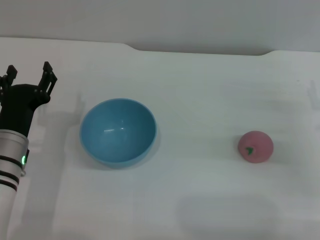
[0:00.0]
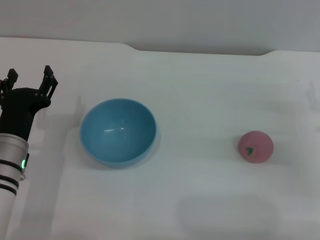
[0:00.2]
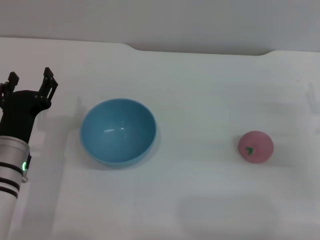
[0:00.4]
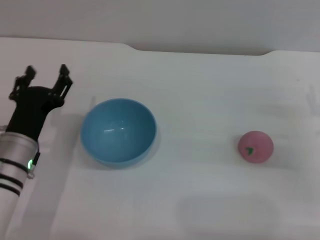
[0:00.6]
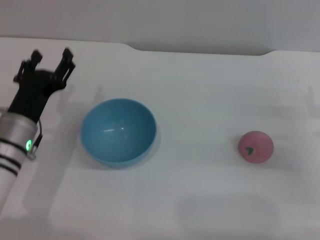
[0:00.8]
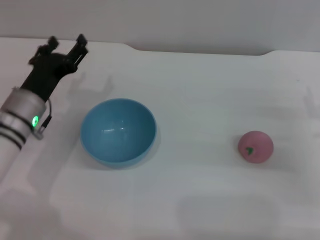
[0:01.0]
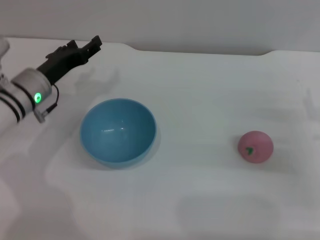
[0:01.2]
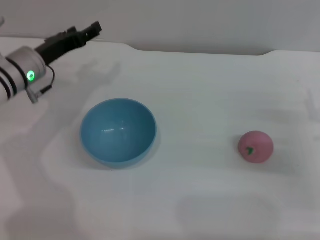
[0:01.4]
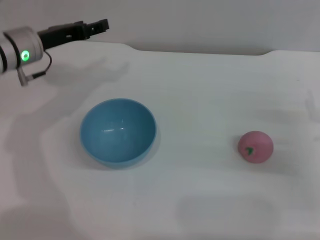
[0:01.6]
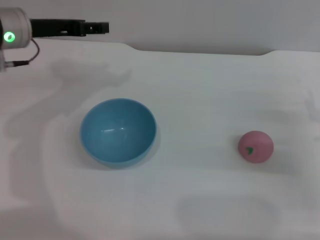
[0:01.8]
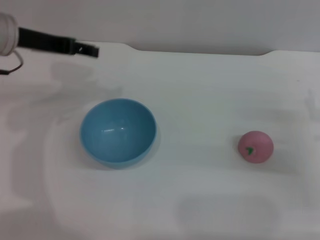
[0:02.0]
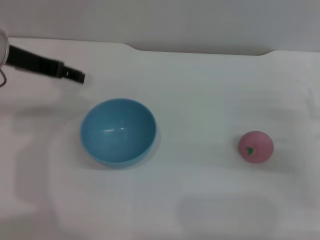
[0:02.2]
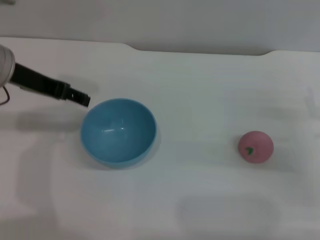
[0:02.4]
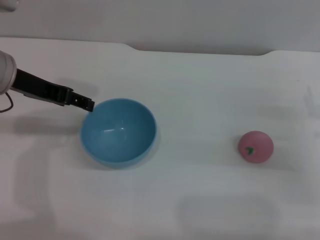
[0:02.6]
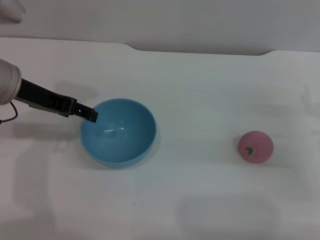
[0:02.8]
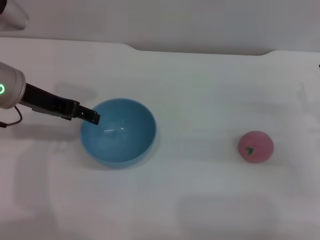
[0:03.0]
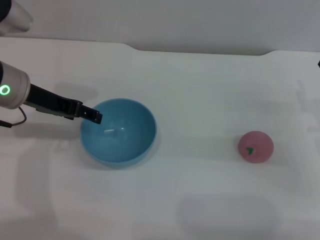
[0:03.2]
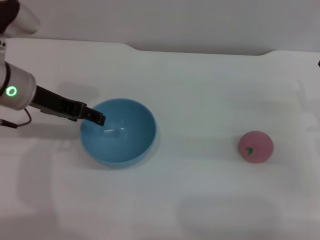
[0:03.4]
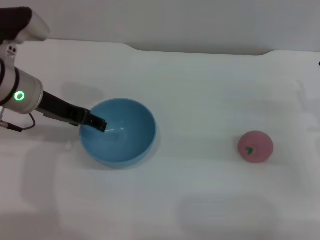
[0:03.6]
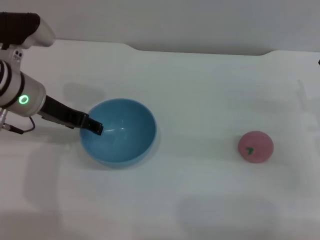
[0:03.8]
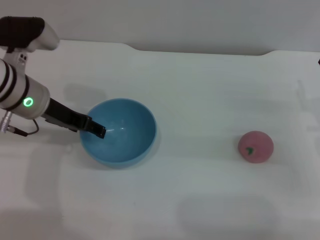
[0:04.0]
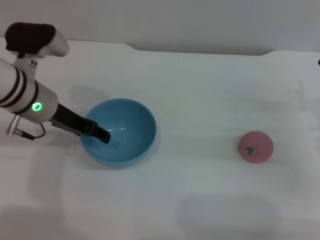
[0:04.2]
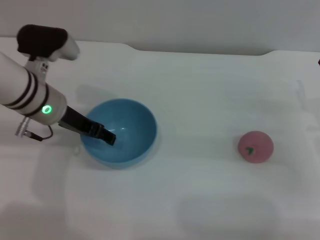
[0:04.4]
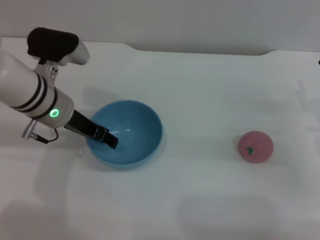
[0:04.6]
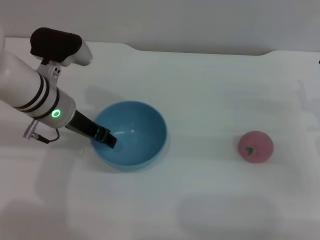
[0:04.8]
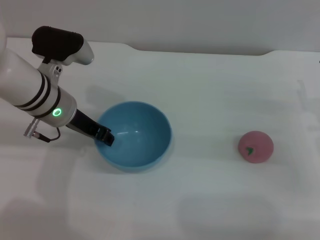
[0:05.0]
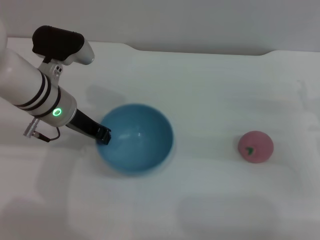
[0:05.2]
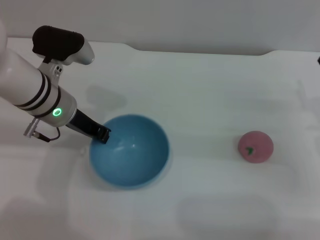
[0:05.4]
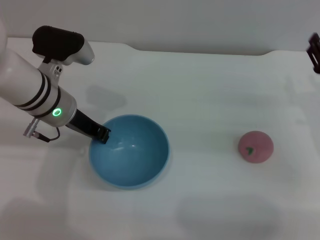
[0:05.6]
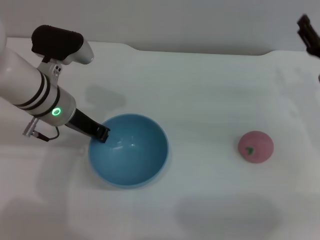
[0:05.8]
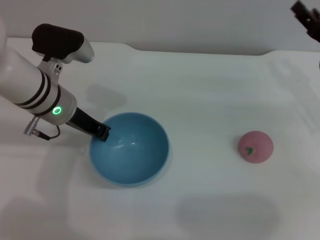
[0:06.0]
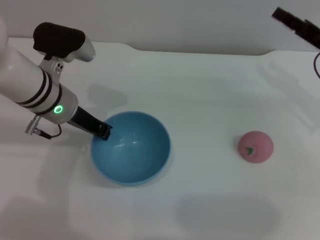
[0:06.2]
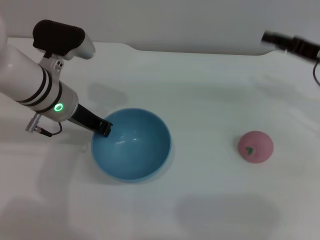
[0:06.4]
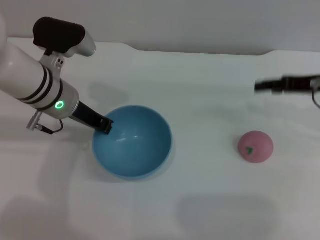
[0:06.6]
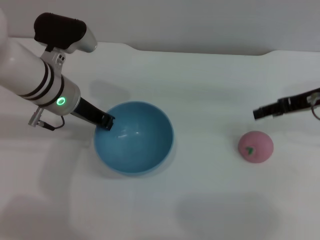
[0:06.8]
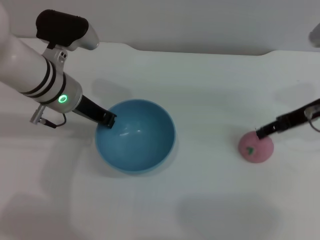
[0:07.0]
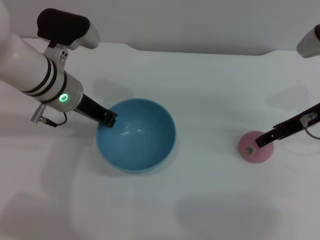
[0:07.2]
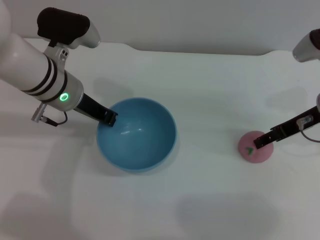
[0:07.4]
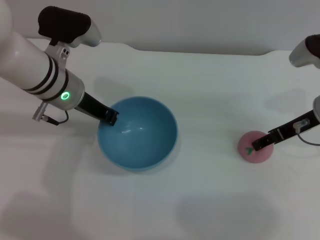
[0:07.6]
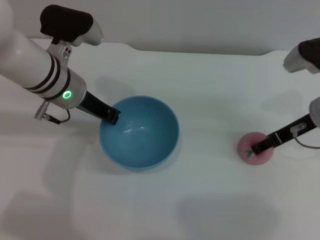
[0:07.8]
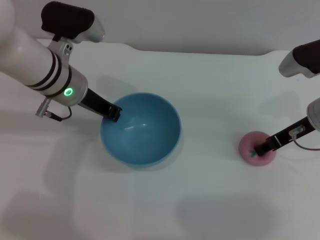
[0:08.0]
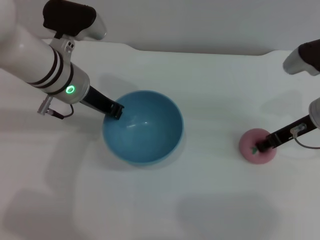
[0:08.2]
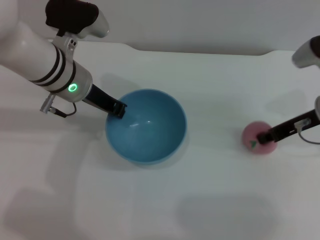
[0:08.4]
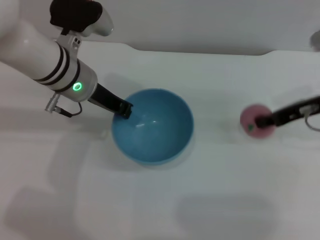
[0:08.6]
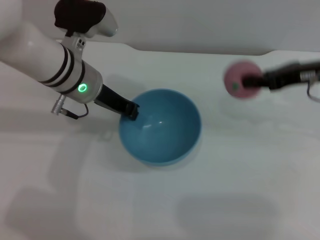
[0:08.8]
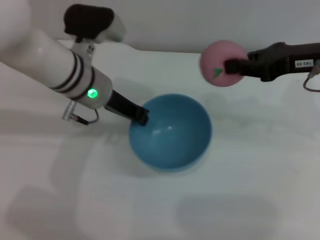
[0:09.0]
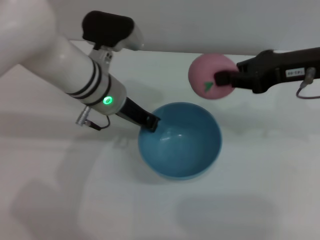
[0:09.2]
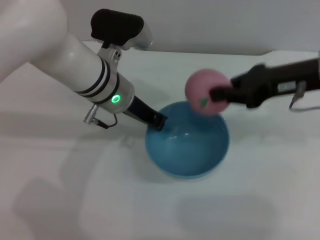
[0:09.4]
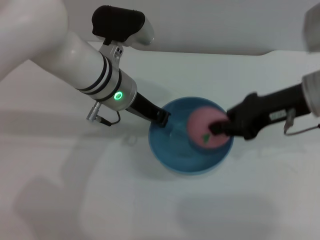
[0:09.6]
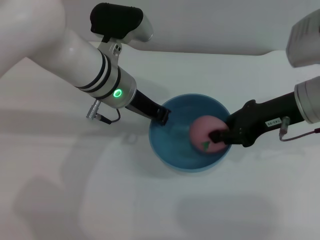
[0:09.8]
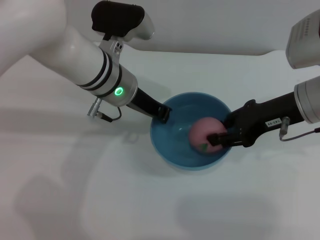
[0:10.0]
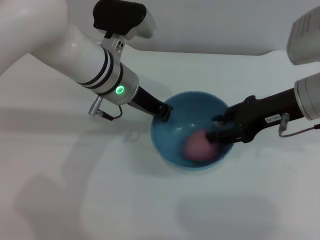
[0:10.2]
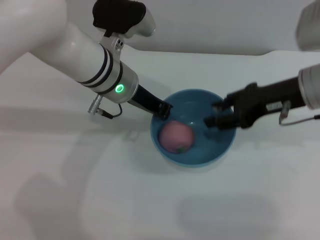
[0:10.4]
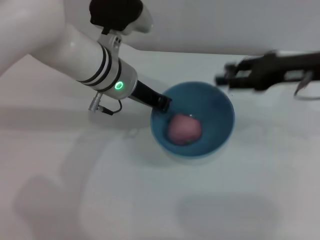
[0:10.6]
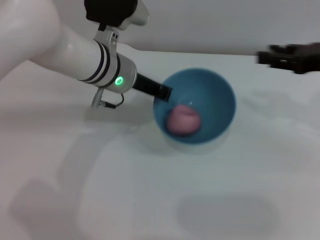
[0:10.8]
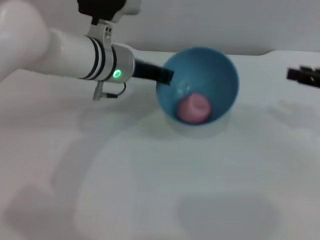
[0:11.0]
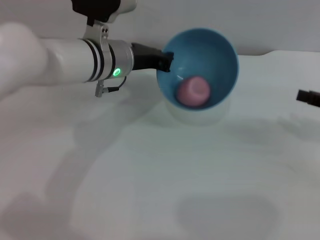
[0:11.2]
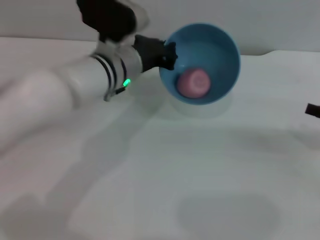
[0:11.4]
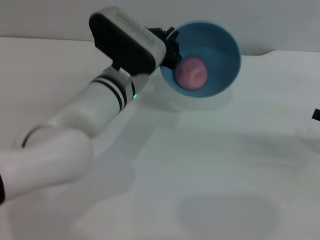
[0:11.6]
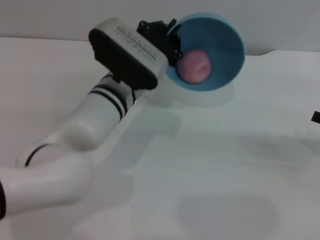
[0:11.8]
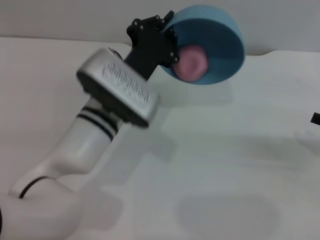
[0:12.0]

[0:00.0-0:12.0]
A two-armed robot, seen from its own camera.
Task of the whole recording: put the peach into the blue bowl and pour it out repeatedly.
Step, 0:00.0 to 0:06.8: Pick up the bowl with the left gripper.
Step, 0:07.0 to 0:08.6: Pick up the peach with the right gripper.
Step, 0:09.0 to 0:10.6: Place the peach into the bowl.
0:00.0 to 0:01.6: The left gripper is displaced forward and upward by about 20 cm.
0:01.6 to 0:03.0: The left gripper heads backward, covering approximately 5 cm.
0:03.0 to 0:04.4: The left gripper shifts roughly 5 cm downward.
0:04.4 to 0:06.0: The right gripper heads forward, covering some 5 cm. The left gripper closes up.
0:07.6 to 0:09.0: The right gripper moves upward, roughly 10 cm, and closes its fingers.
0:09.0 to 0:10.4: The right gripper ends up some 5 cm from where it was, and opens.
0:10.4 to 0:12.0: The right gripper travels to the right, backward and downward by about 20 cm. Meanwhile the left gripper shifts some 10 cm backward and downward.

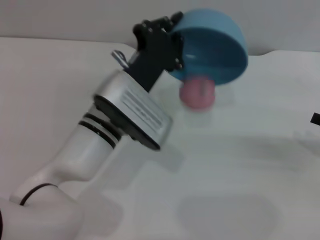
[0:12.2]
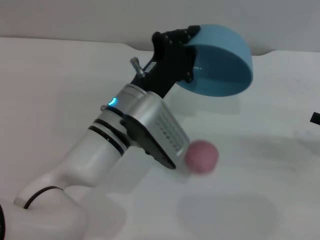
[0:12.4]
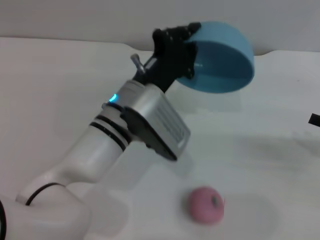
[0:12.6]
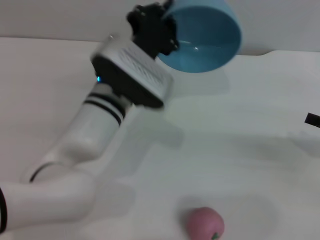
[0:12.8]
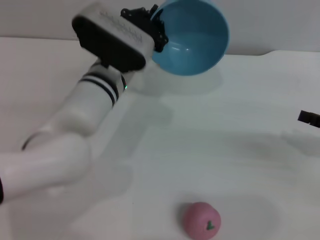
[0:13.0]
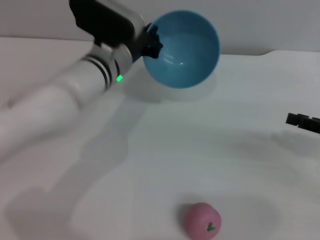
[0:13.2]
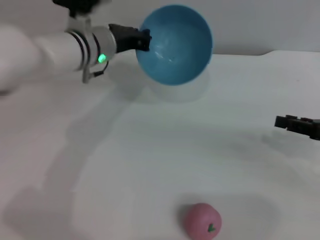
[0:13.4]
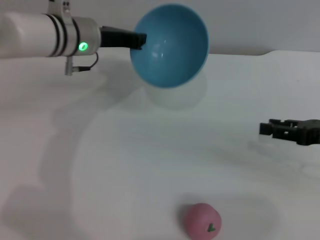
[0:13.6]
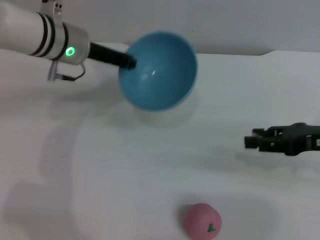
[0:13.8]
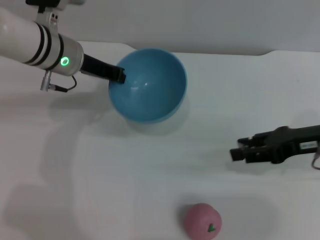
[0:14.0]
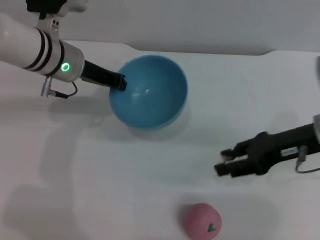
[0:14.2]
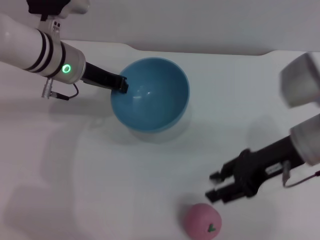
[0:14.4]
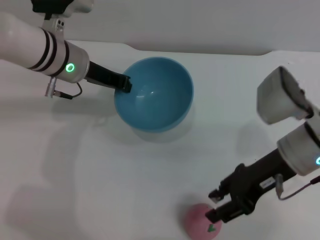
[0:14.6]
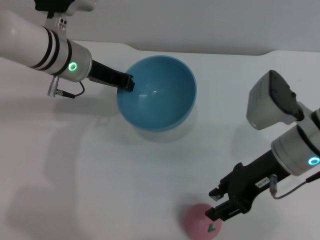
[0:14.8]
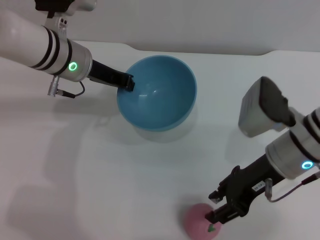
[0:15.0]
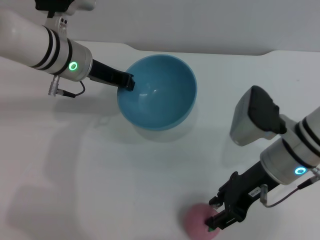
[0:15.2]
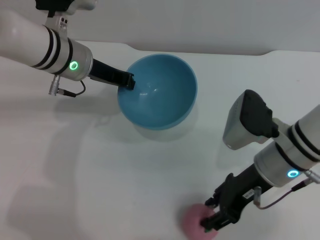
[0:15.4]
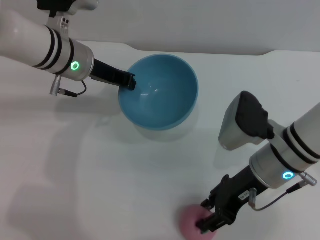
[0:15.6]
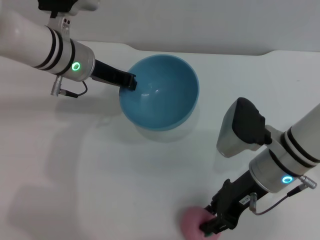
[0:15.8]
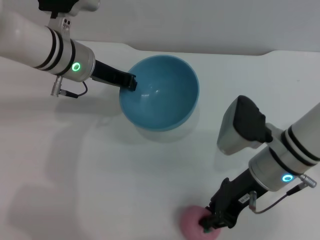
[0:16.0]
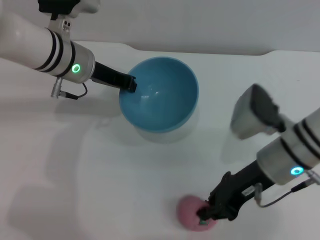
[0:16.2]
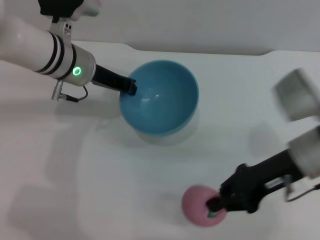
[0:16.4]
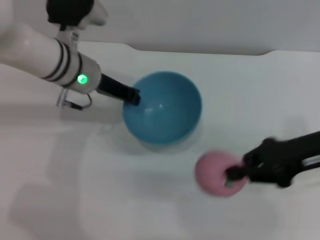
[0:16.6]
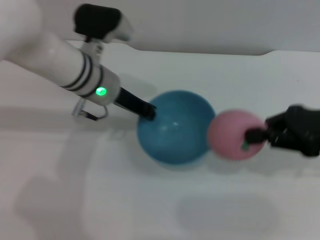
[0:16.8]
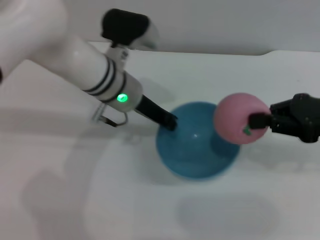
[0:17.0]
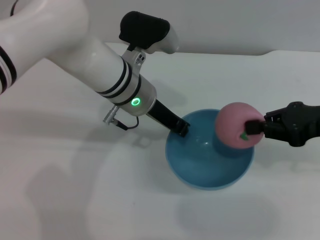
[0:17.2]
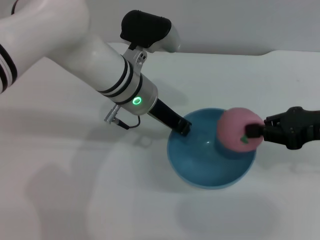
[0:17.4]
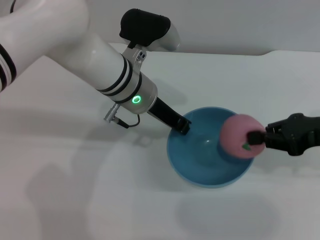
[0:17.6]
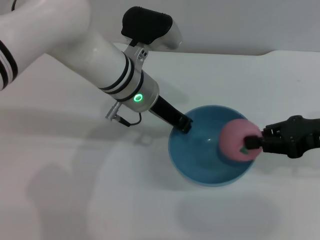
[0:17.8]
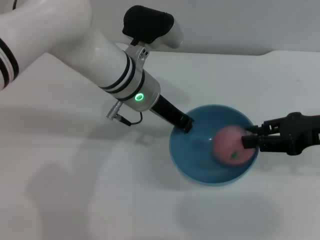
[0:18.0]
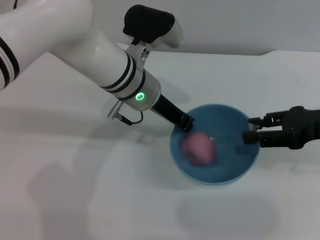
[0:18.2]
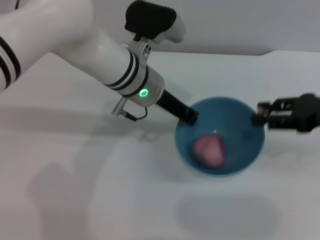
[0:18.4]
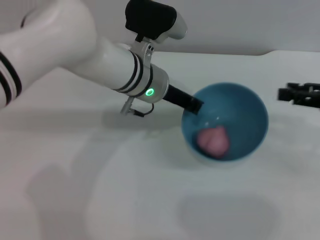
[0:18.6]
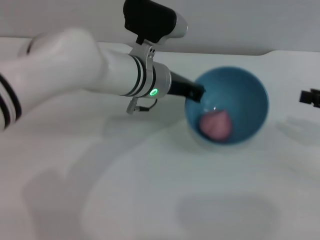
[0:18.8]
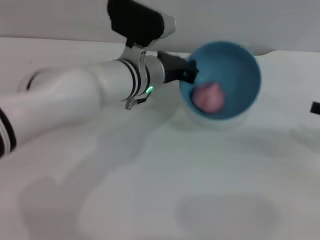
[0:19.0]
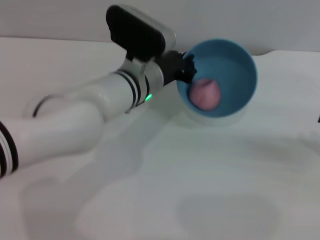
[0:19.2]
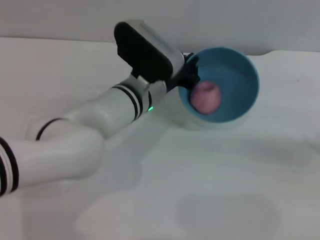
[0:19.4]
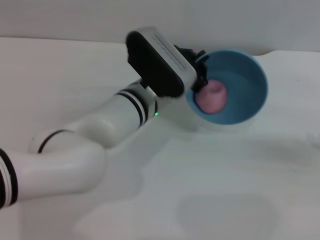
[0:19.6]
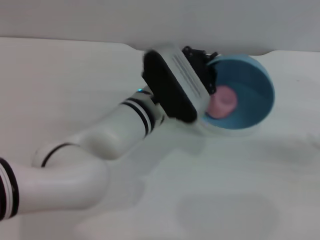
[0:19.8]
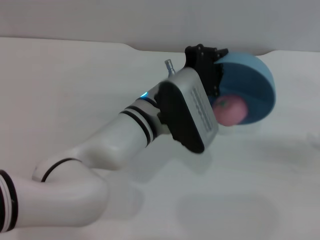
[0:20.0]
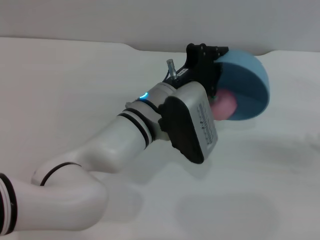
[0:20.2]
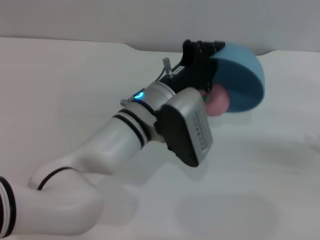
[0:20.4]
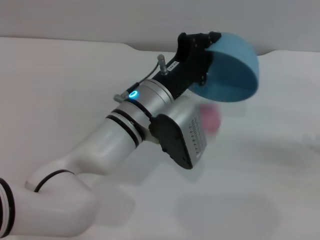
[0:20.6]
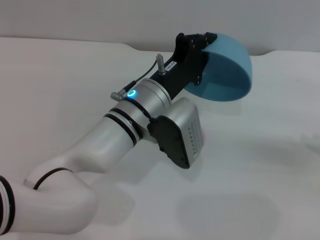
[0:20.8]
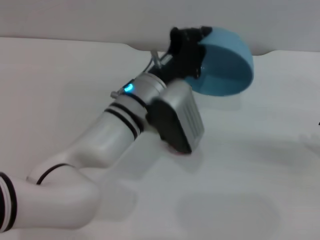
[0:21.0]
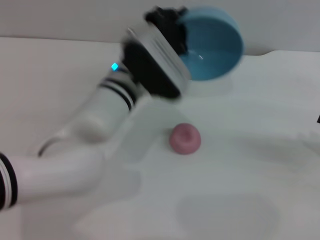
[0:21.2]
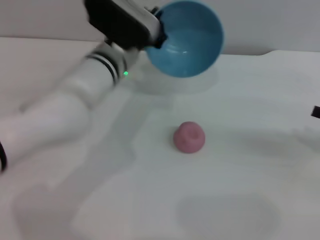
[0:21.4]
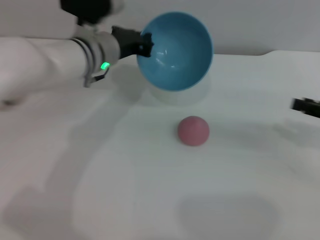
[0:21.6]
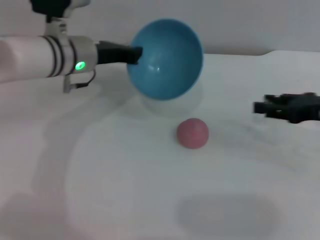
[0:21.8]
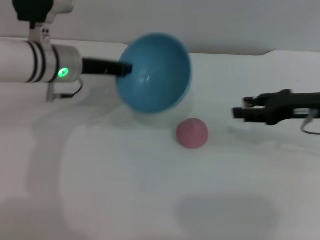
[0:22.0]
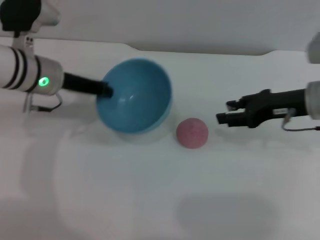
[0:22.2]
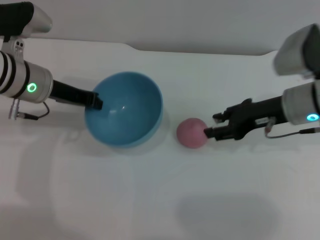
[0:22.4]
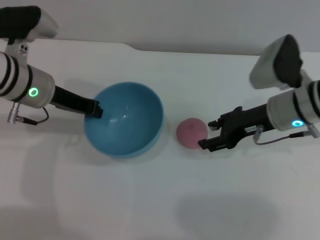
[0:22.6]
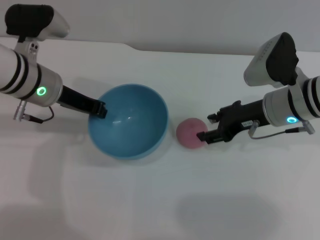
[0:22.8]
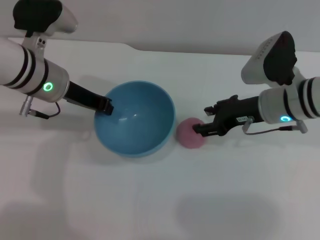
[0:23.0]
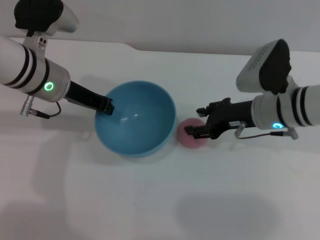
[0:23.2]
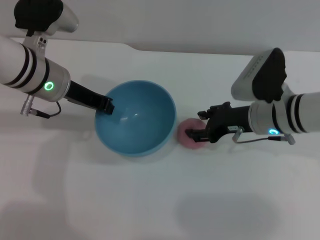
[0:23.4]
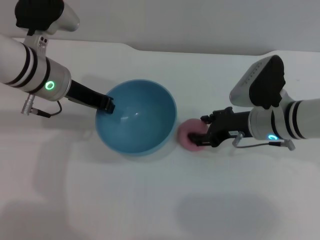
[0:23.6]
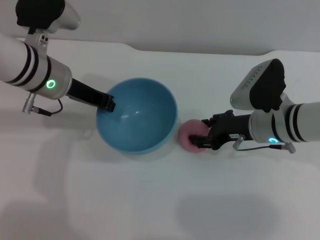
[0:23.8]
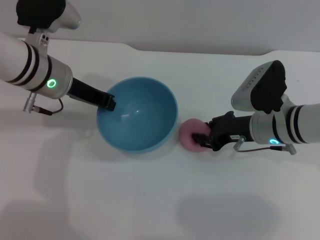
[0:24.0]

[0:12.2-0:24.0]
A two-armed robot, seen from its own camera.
Task of the whole recording: put the peach into the blue bowl and pour it out repeatedly.
Step, 0:12.8 to 0:16.4: Pick up the peach with the right gripper.
Step, 0:16.8 to 0:18.4: Place the peach into the bowl.
Step, 0:18.6 to 0:21.4: Pour the peach out of bowl.
0:12.2 to 0:13.6: The left gripper travels forward, to the left and upward by some 15 cm, while the right gripper travels to the left by approximately 5 cm.
0:13.6 to 0:15.2: The right gripper moves to the left, roughly 15 cm.
0:15.2 to 0:16.6: The right gripper is displaced to the right by approximately 10 cm, and closes.
0:16.6 to 0:18.2: The left gripper goes approximately 10 cm to the right, while the right gripper opens.
0:18.2 to 0:19.6: The right gripper moves to the right, downward and backward, roughly 15 cm. Meanwhile the left gripper changes place by some 5 cm.
0:21.0 to 0:22.6: The right gripper goes about 25 cm to the left and forward. The left gripper moves to the left, some 15 cm.
